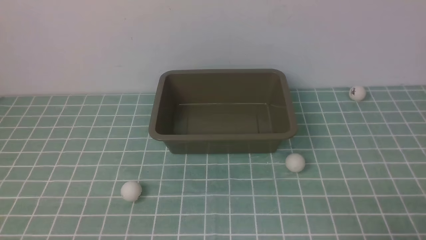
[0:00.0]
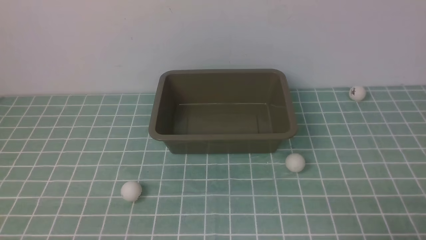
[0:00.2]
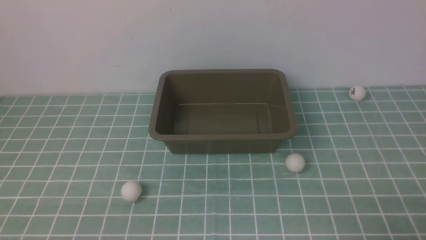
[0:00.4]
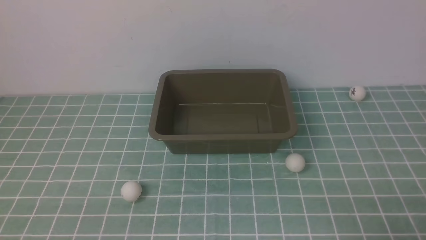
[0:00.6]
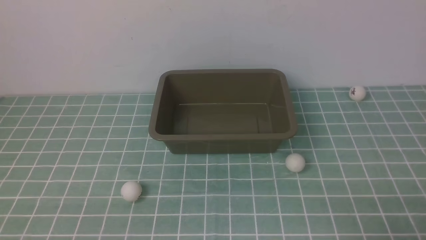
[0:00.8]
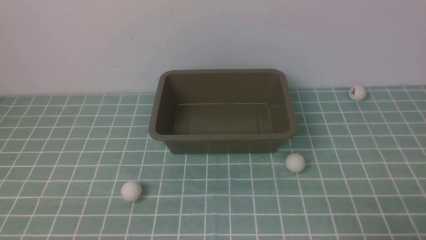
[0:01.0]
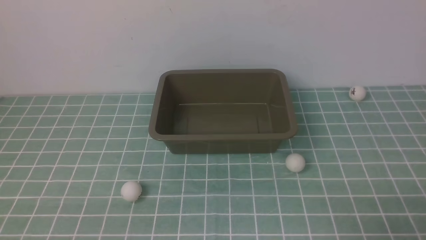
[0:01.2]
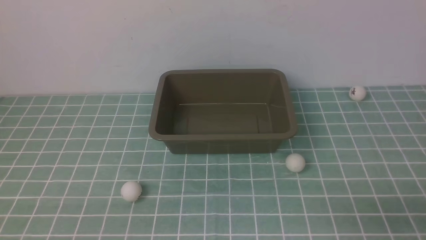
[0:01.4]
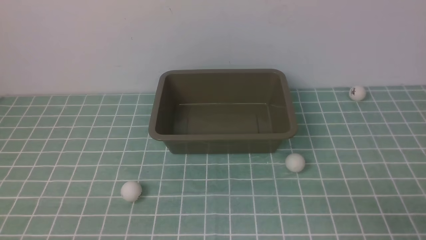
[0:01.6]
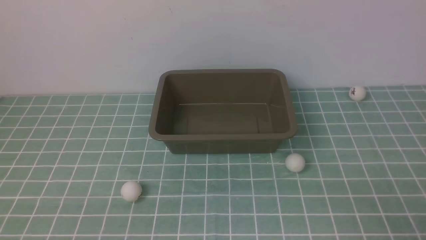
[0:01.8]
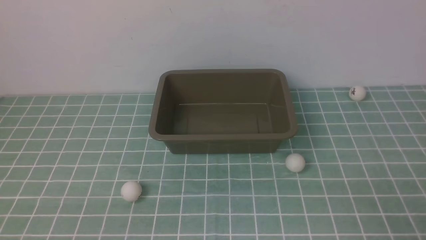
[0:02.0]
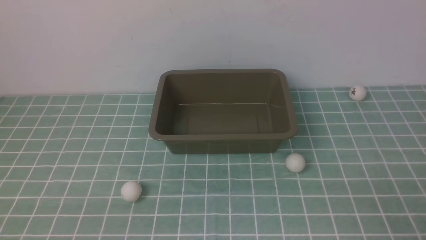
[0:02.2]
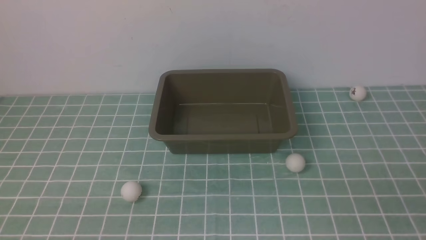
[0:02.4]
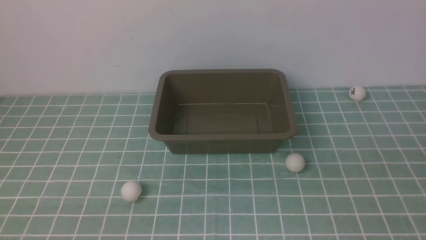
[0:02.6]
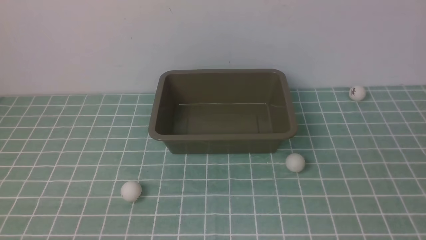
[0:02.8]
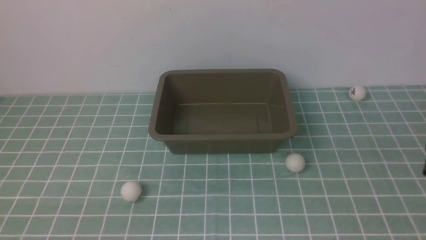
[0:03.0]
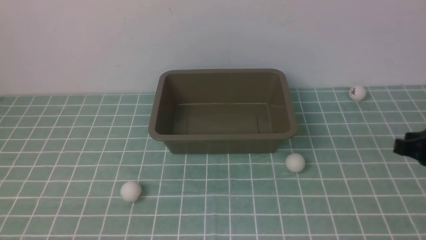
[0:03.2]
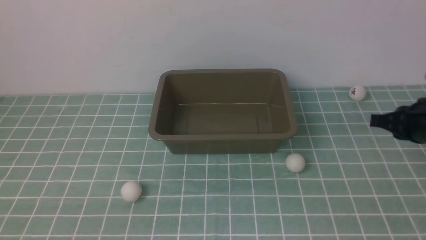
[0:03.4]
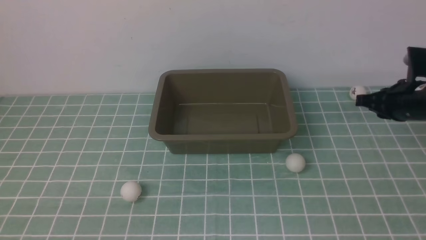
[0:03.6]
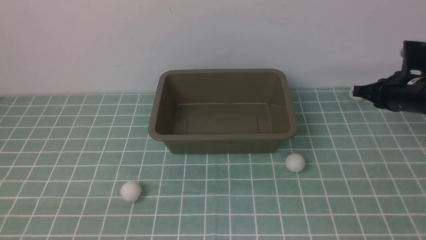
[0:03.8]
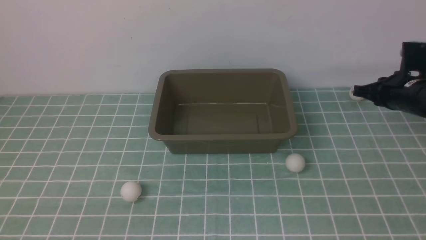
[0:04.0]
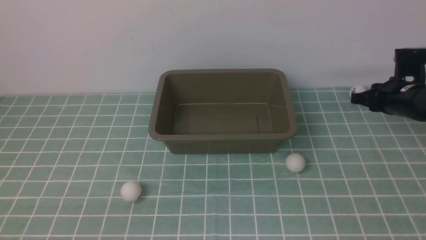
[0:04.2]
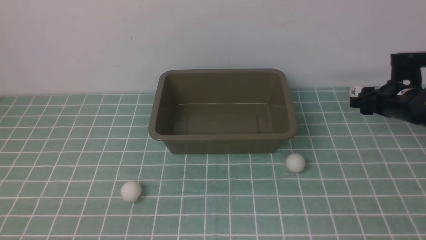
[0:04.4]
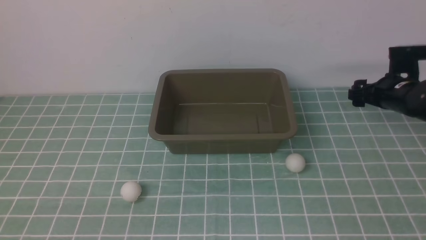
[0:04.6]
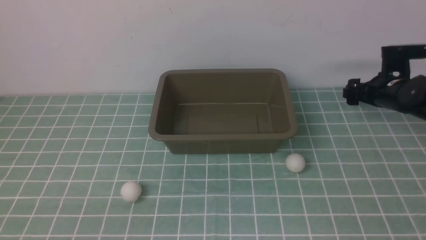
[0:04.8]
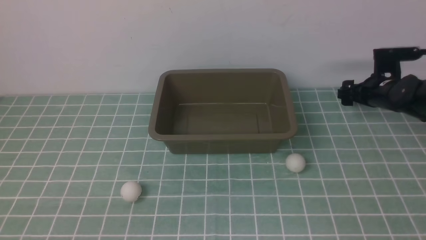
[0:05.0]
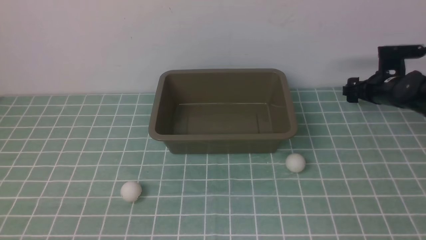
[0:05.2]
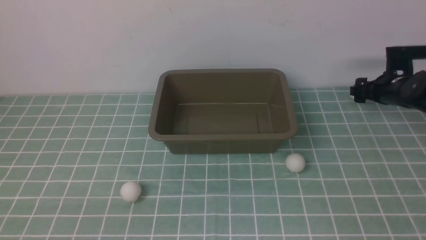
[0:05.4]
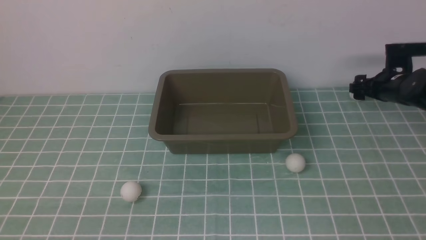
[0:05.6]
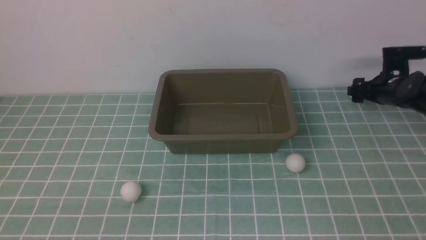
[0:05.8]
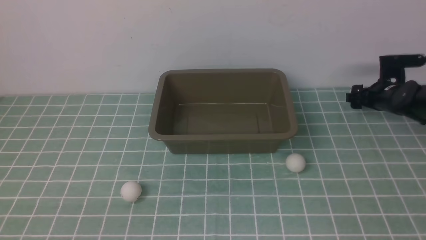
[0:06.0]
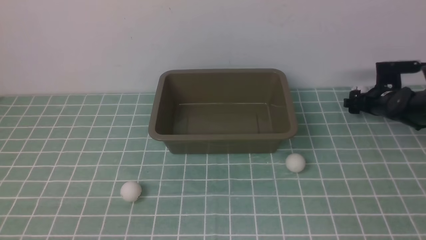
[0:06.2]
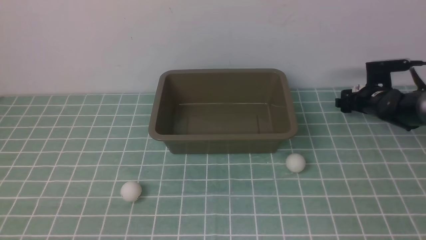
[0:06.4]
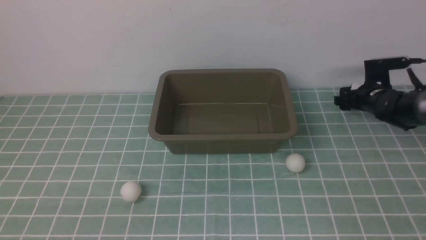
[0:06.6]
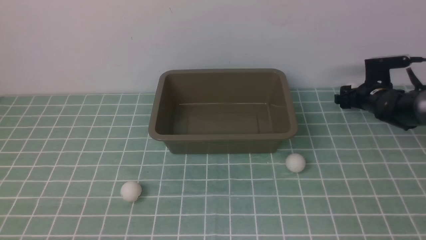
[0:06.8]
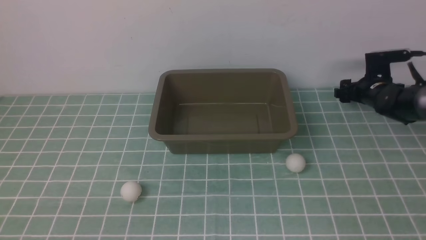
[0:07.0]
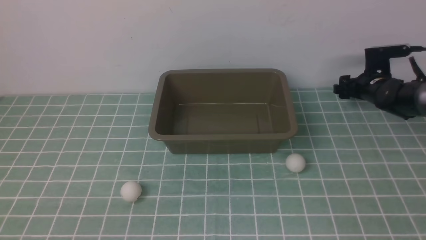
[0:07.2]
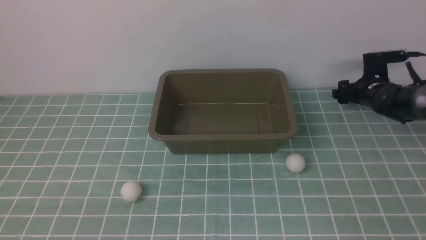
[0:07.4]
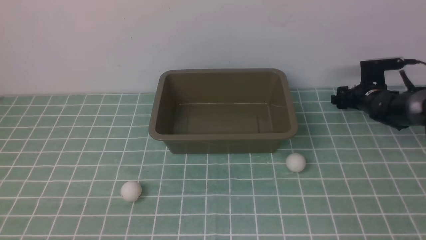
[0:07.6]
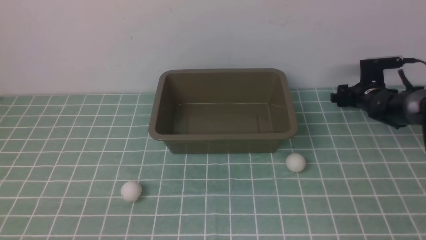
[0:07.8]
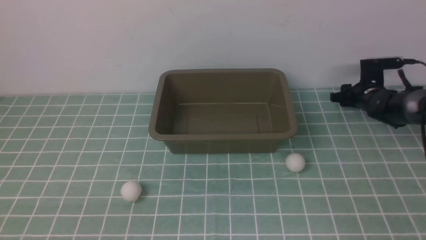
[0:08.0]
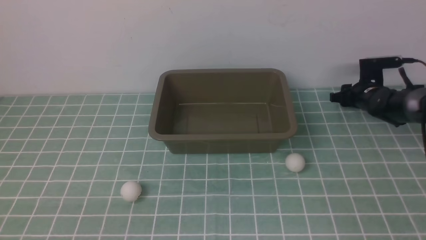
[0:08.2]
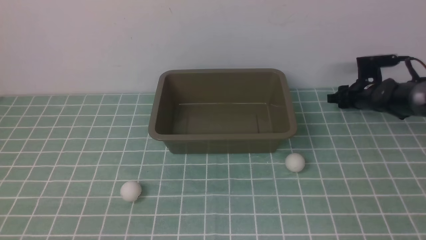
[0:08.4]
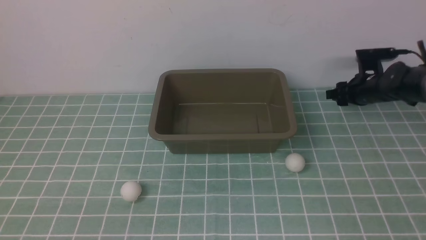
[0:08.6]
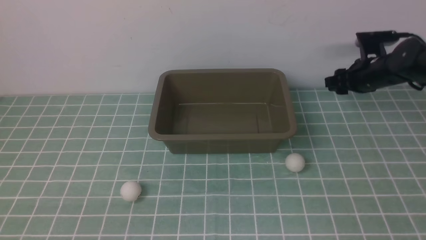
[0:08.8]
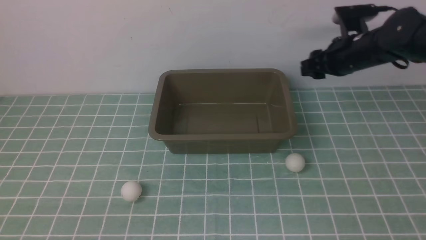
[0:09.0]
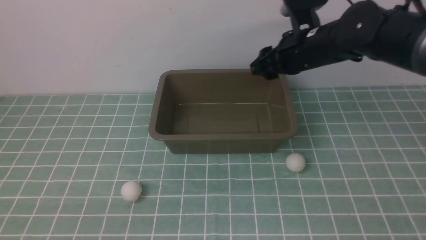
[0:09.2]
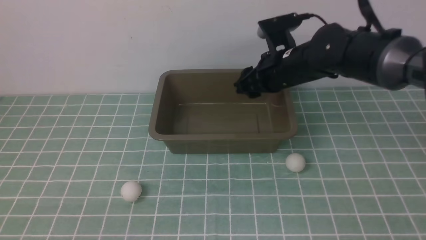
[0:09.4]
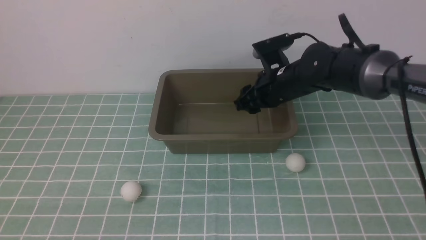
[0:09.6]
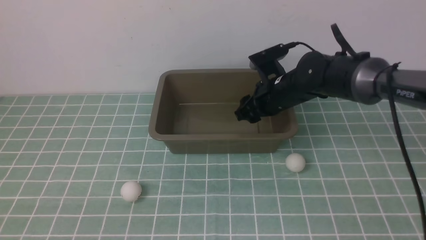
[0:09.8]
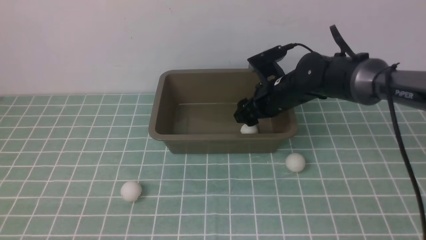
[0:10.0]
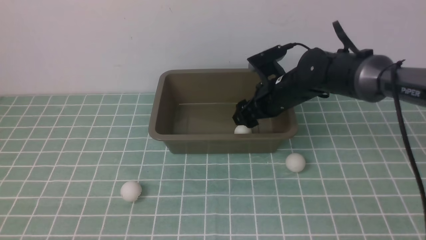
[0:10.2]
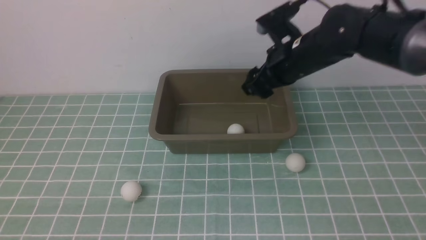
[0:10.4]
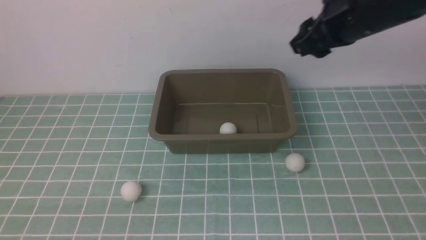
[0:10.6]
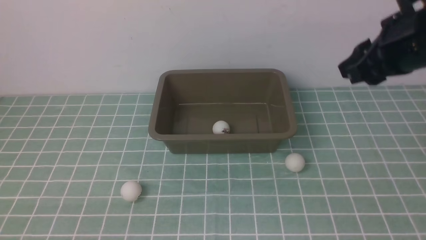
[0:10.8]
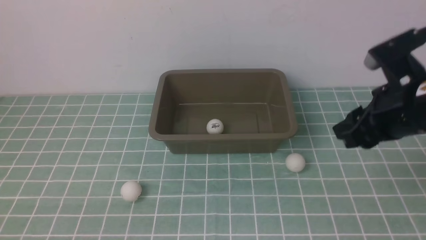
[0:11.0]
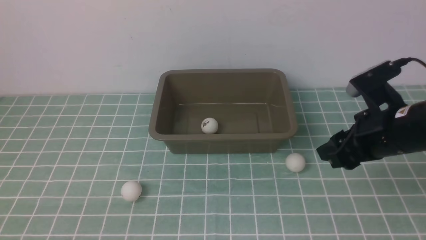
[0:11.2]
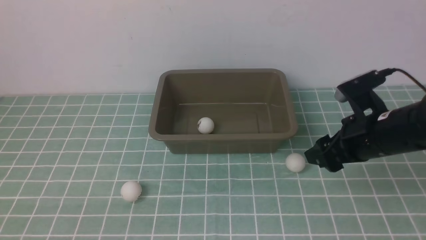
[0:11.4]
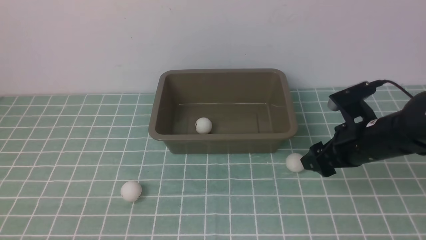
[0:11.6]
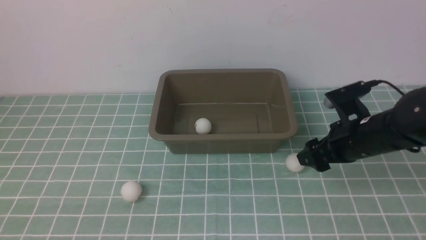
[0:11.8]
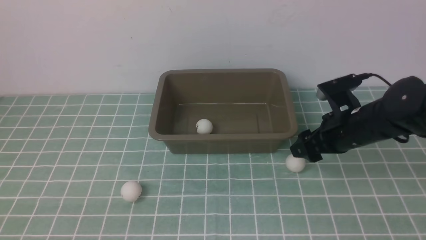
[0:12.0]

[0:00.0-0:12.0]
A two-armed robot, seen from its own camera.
Step, 0:00.0 to 0:08.6: use the right arm to clamp the table tennis ball closest to it.
Step, 0:08.8 to 0:10.2: use the right arm to put the table tennis ball into the box.
0:03.0 to 0:04.4: The right gripper travels forward and downward by some 30 cm, and opens up.
0:04.4 to 0:06.0: The right gripper moves forward and downward, some 10 cm.
0:06.0 to 0:07.6: The grippers move only a little.
0:07.6 to 0:09.0: The right gripper heads upward and to the left, covering about 15 cm.
0:09.0 to 0:10.4: The right gripper goes roughly 10 cm to the left, backward and upward.
0:10.4 to 0:12.0: The right gripper travels downward, to the right and backward by about 15 cm.

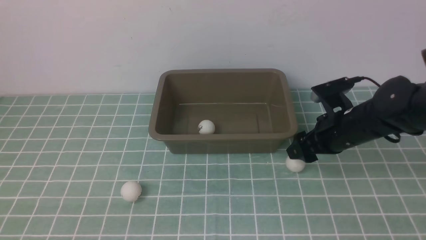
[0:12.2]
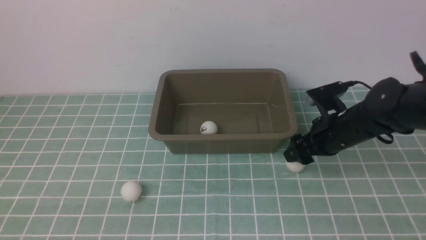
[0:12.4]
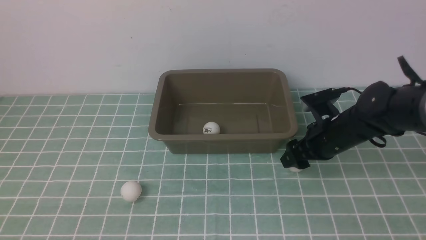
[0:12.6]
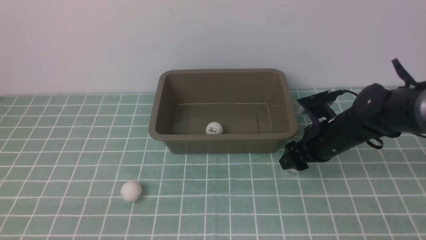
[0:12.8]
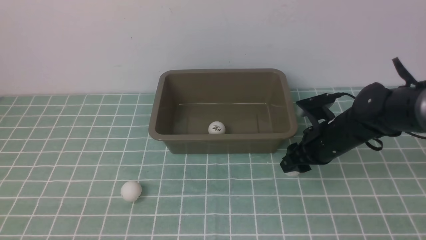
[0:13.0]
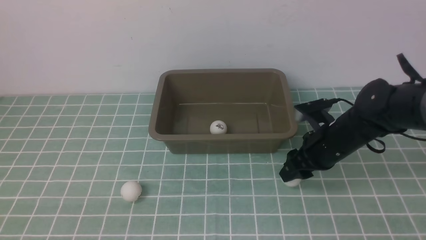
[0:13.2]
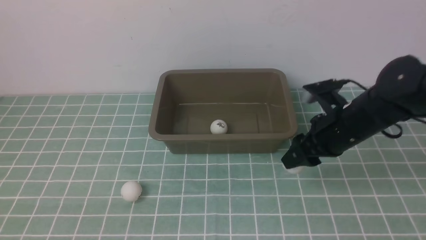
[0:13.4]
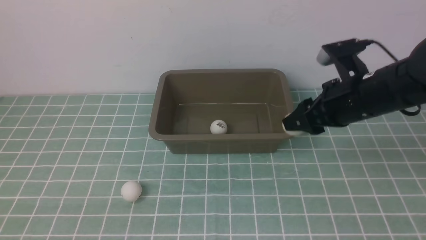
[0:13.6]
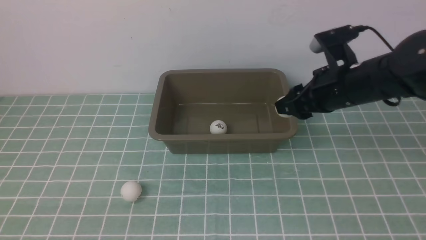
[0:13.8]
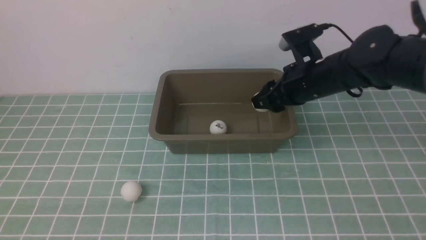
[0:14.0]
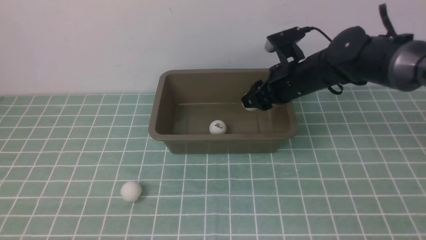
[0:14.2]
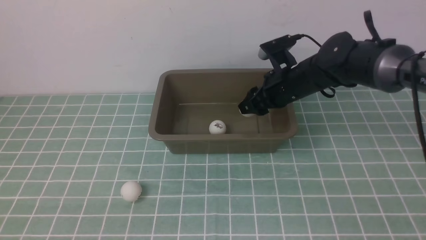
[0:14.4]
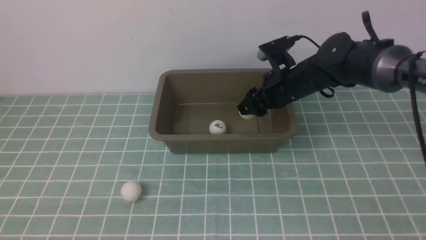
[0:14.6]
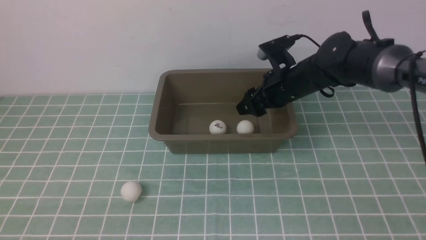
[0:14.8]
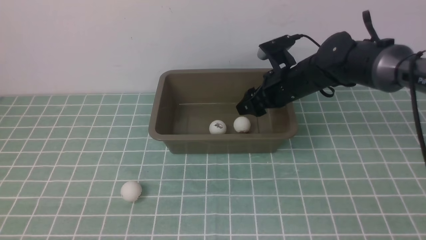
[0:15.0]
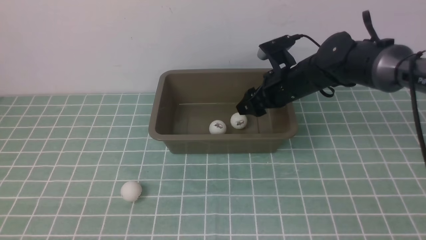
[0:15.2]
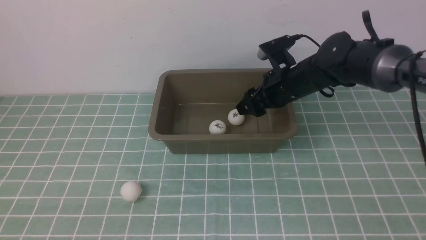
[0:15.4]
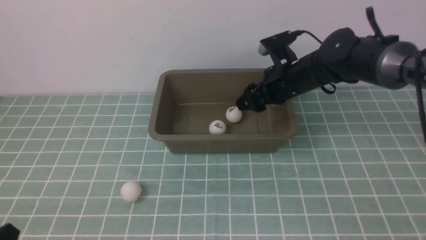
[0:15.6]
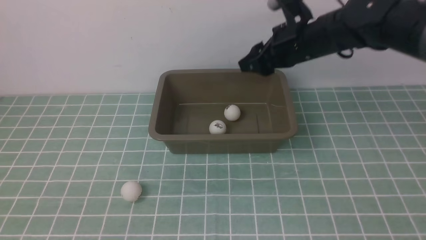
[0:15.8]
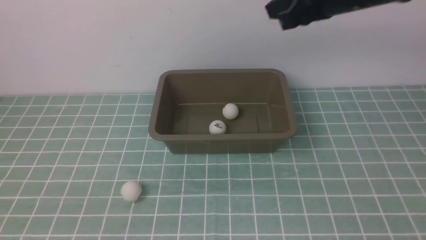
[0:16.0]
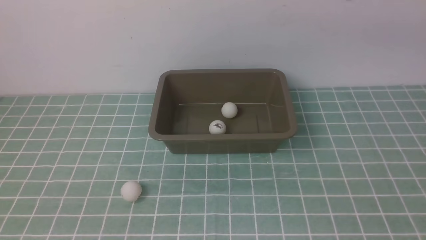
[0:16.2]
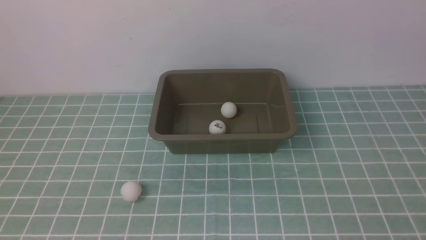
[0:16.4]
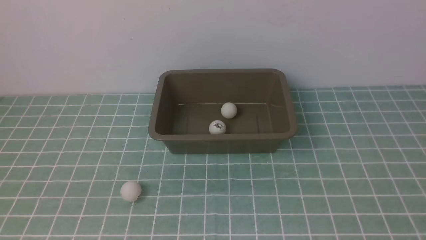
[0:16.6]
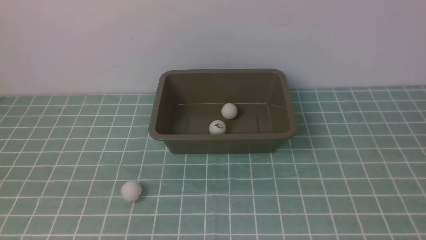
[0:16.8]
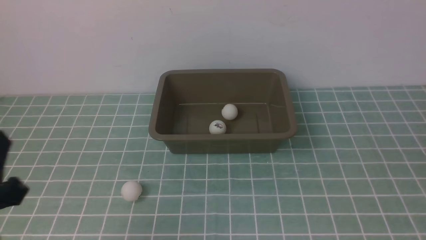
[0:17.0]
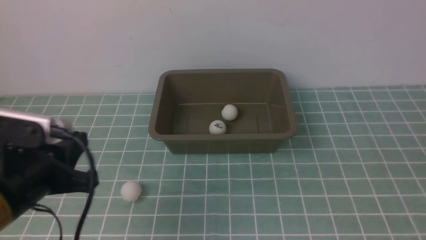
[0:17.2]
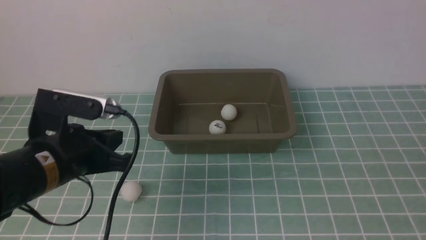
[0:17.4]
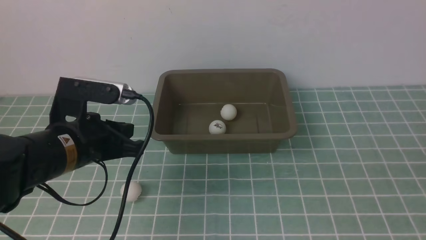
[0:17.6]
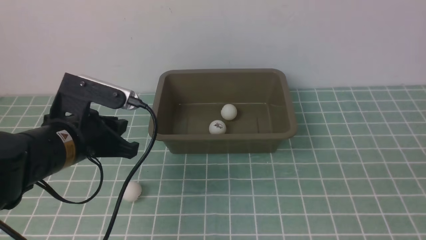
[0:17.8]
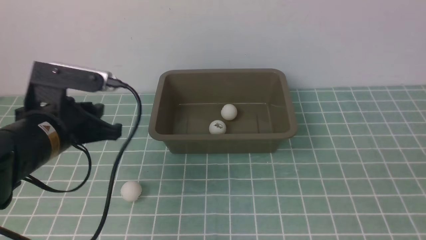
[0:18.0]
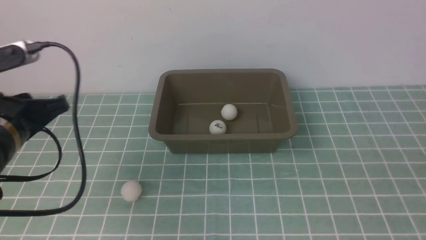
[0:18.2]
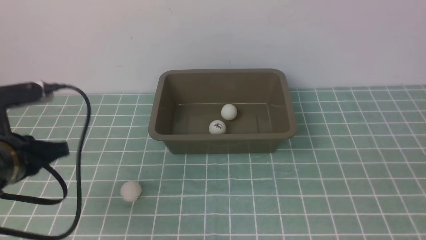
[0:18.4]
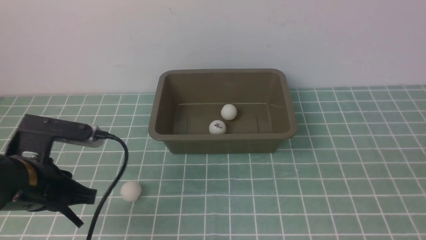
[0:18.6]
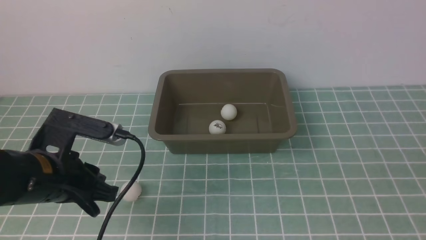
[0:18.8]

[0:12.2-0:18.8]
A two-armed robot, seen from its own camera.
Step, 0:13.8 to 0:14.8: use the right arm to put the table tennis ball into the box.
0:12.2 to 0:13.8: The right gripper moves upward, roughly 10 cm.
0:13.8 to 0:15.4: The right gripper is displaced forward by some 10 cm.
0:15.4 to 0:17.2: The left gripper shifts roughly 20 cm forward, upward and to the right. The right gripper heads backward and to the right, covering about 40 cm, and closes.
0:17.2 to 0:18.8: The left gripper opens up.
